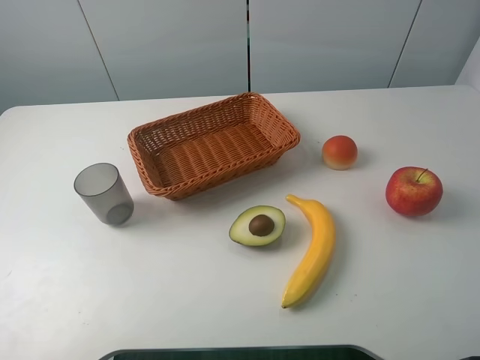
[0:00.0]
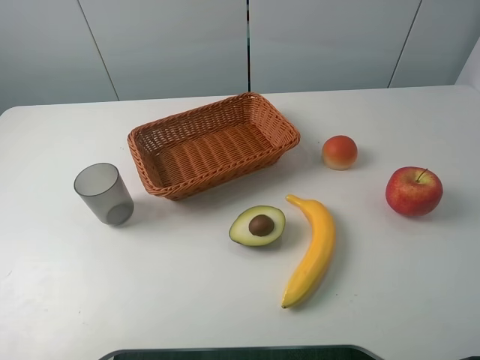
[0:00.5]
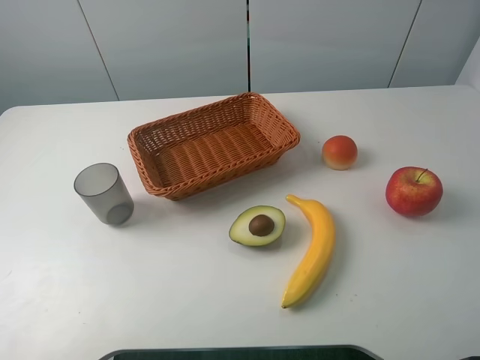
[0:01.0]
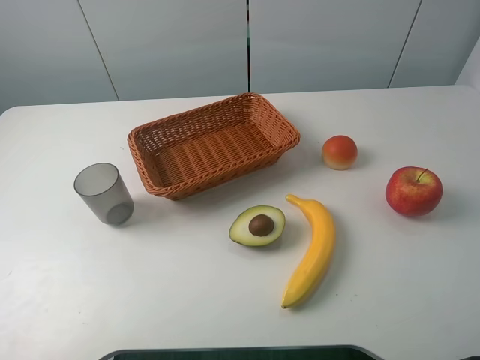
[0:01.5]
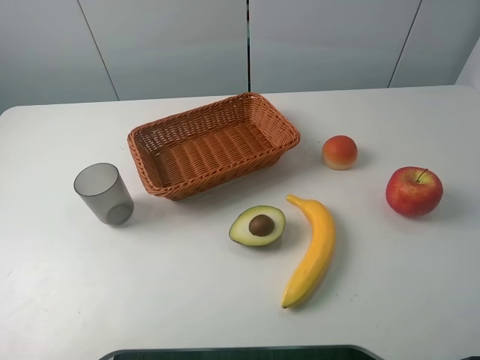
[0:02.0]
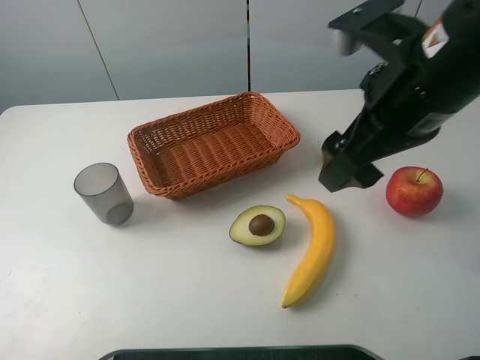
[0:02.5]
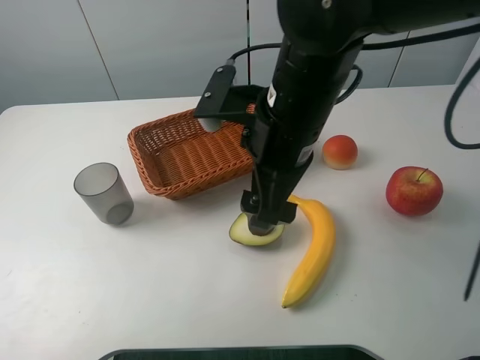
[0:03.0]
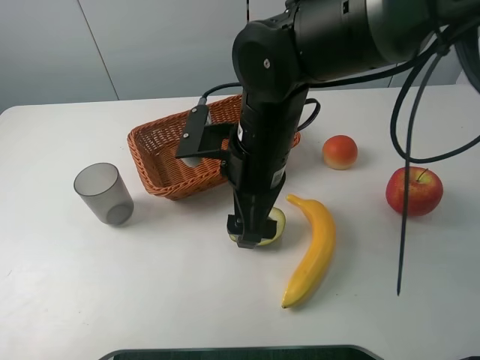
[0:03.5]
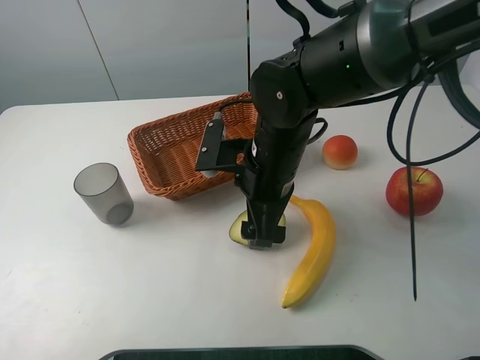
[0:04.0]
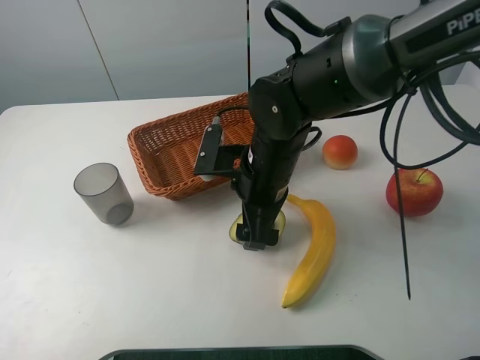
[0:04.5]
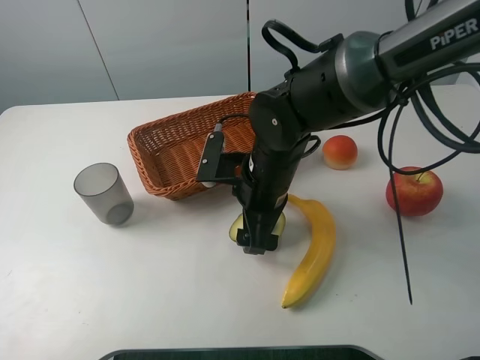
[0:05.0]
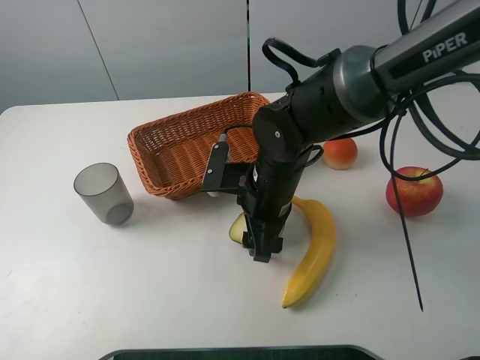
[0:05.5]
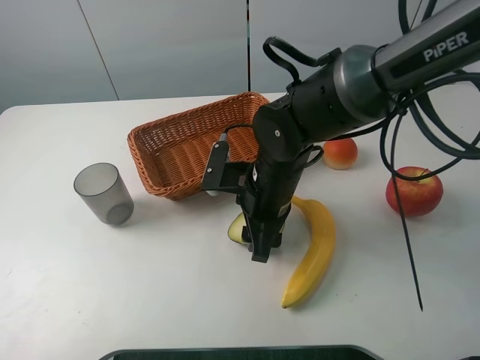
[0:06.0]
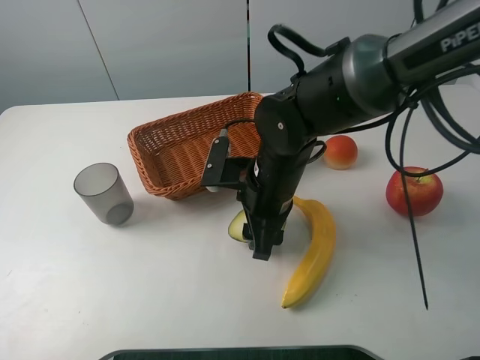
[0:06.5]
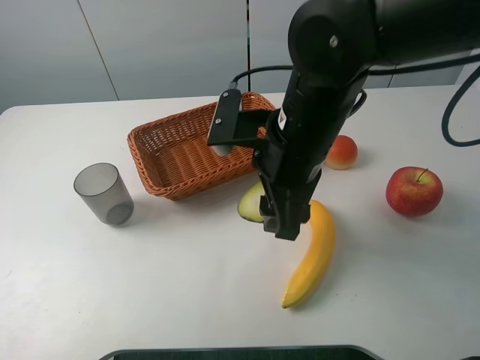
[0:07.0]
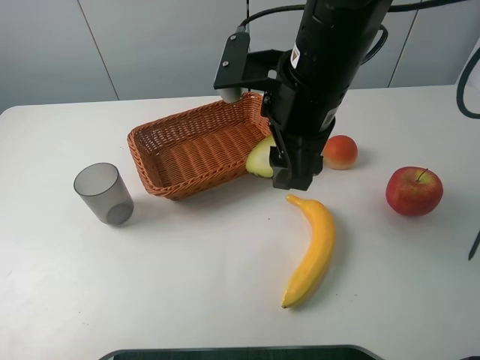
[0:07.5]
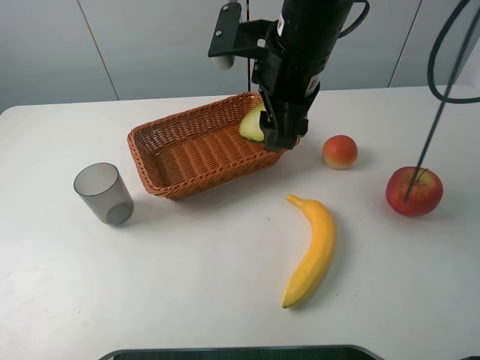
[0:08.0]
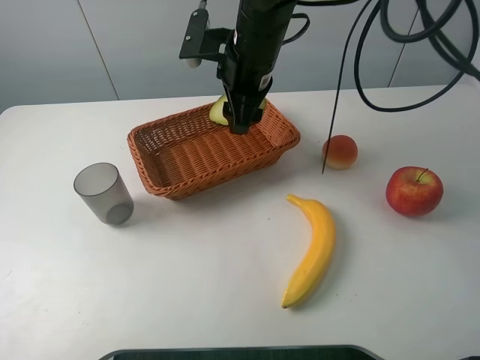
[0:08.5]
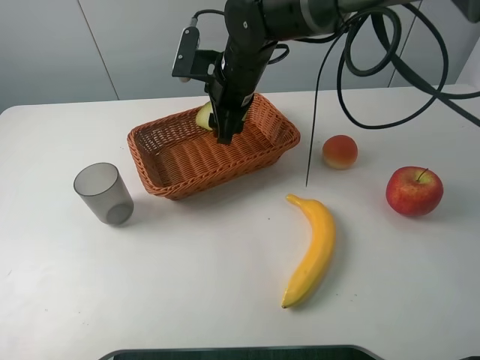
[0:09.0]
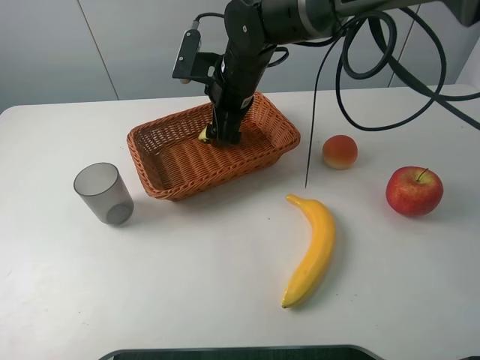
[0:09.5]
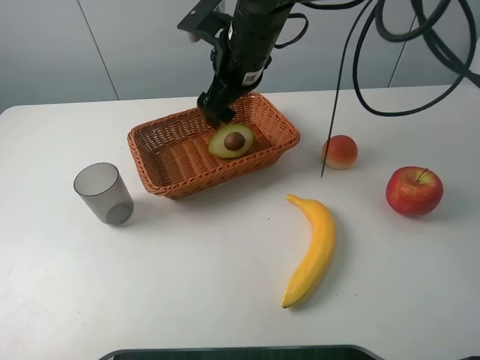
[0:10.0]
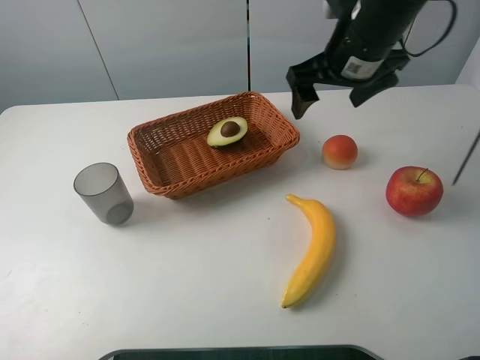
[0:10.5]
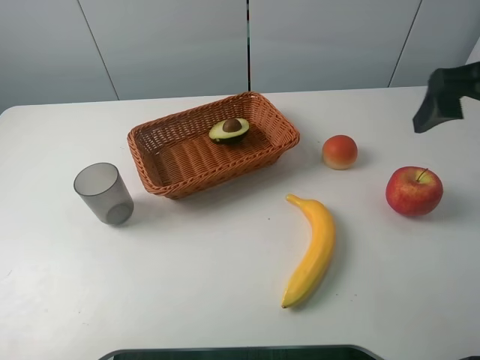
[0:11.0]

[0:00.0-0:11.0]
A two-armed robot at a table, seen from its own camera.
Task of the whole recording: randomly pick up an item from the table and put it in the basket.
Step, 0:00.0 to 0:05.5: Grasp the avocado with the right gripper.
Step, 0:06.0 to 0:10.0: Place the avocado into the basket with the right gripper.
0:02.0 to 0:03.5: The right gripper moves to the left, downward and forward, some 35 cm.
0:03.5 to 0:05.5: The right gripper travels downward by some 5 cm, and closes its fingers.
0:05.5 to 0:07.5: The right gripper is displaced upward by roughly 15 cm.
0:07.5 to 0:09.0: The right gripper goes about 15 cm forward, downward and to the left.
0:09.0 to 0:11.0: The right gripper travels to the right, backward and upward by roughly 35 cm, and opens up.

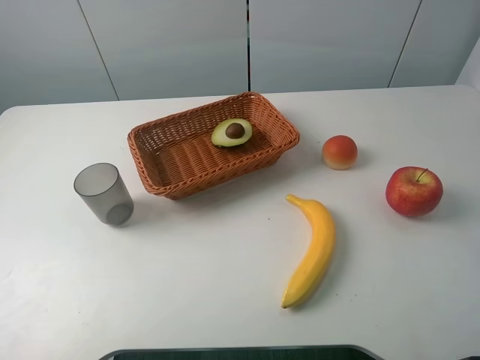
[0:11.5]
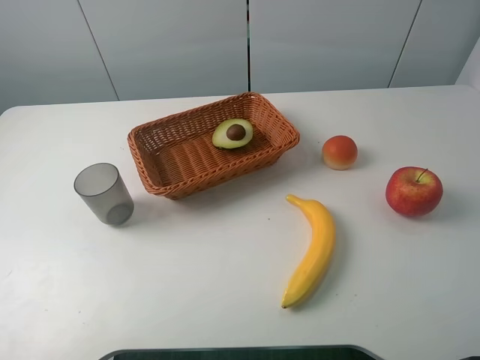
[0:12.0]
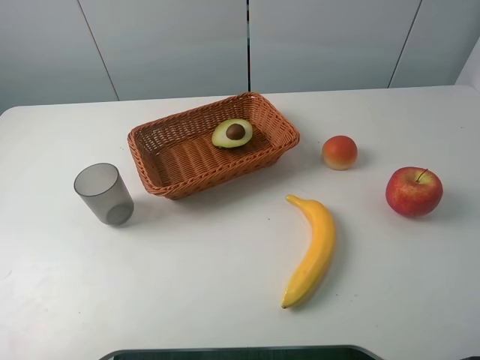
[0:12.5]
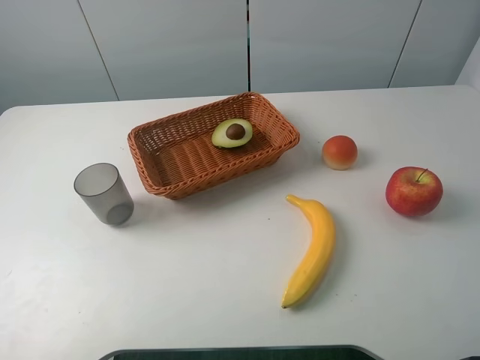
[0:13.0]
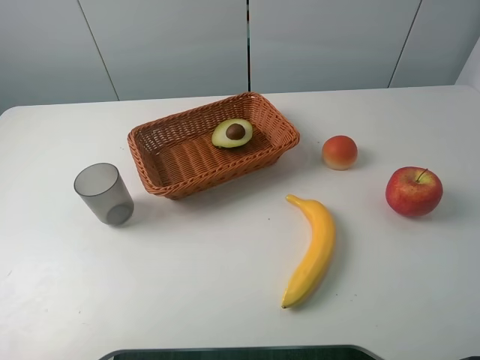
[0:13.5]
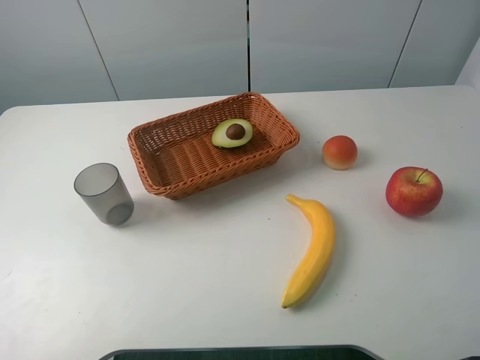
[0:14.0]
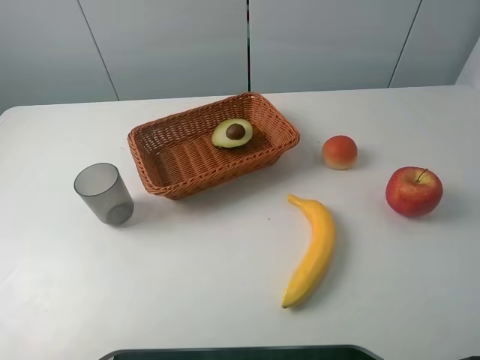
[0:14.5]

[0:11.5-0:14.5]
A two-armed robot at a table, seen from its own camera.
Task of the whole recording: randomly pick up an item from the table and put it in the basket.
0:13.0 to 0:14.5: The two grippers keep their place.

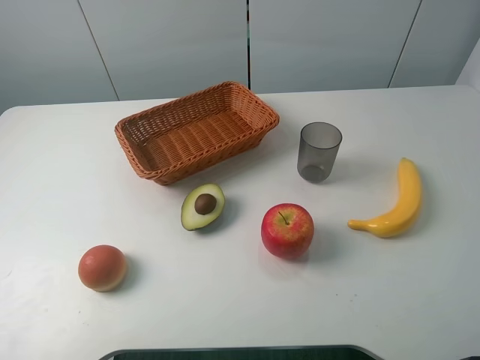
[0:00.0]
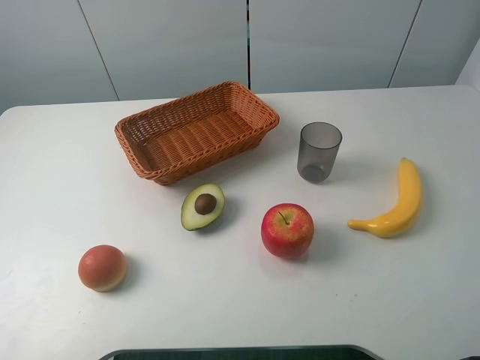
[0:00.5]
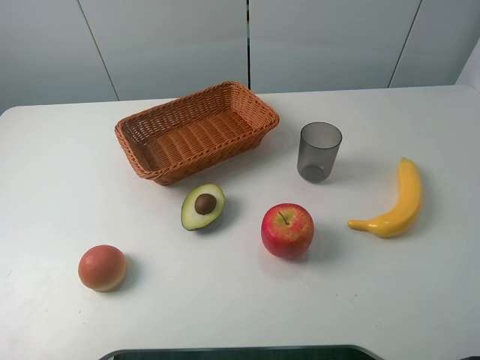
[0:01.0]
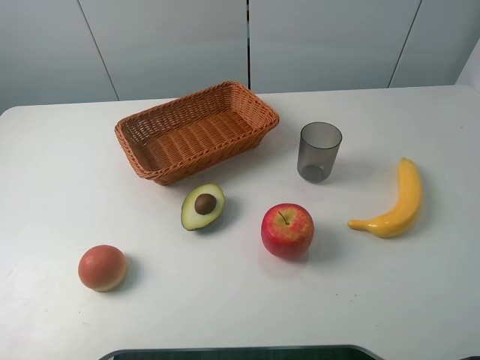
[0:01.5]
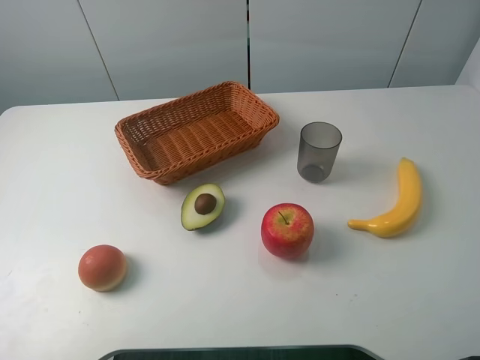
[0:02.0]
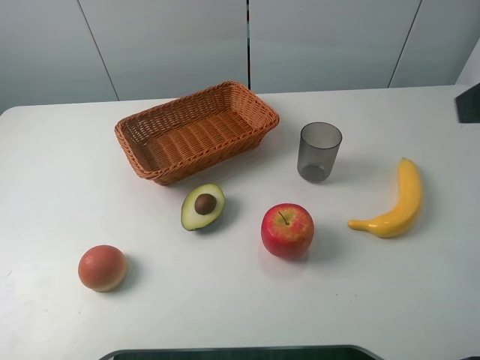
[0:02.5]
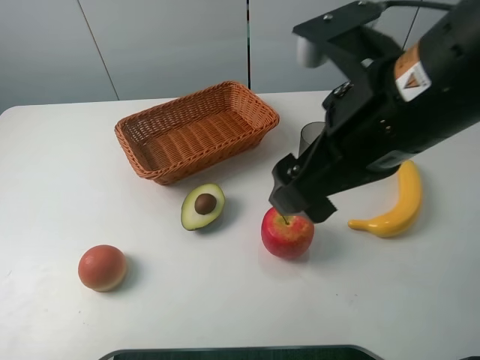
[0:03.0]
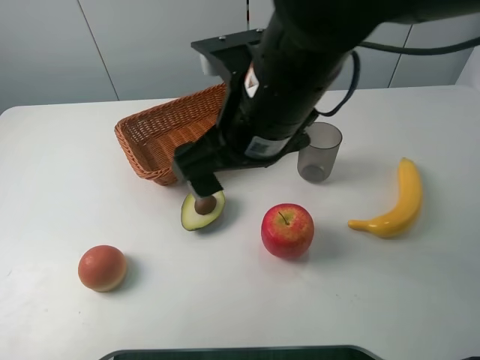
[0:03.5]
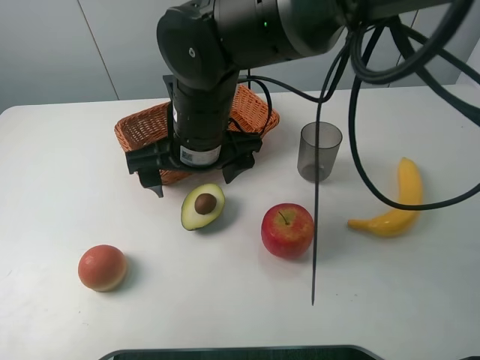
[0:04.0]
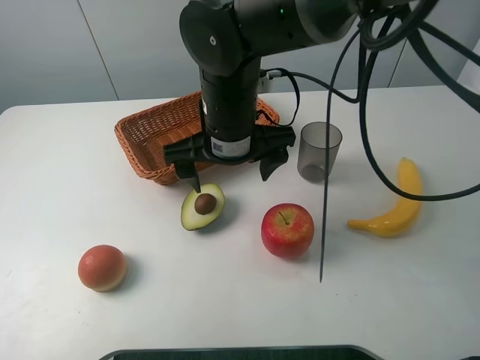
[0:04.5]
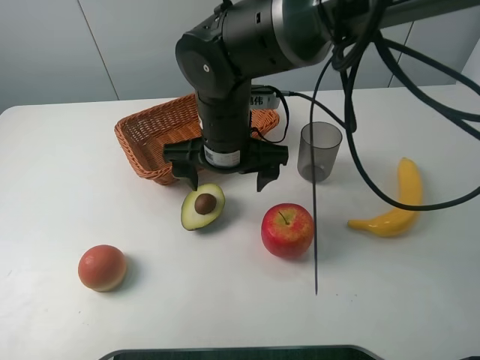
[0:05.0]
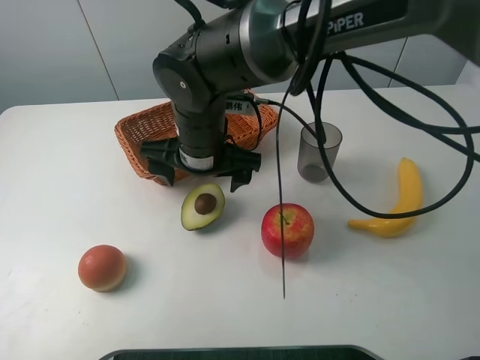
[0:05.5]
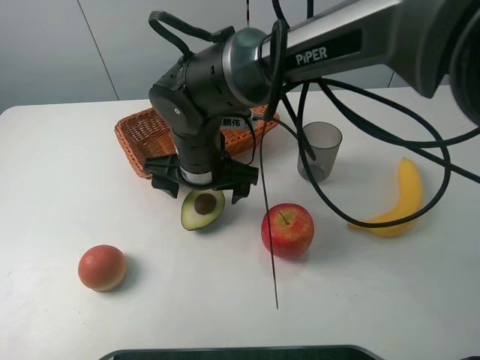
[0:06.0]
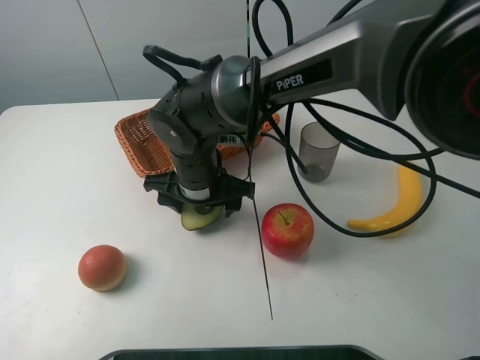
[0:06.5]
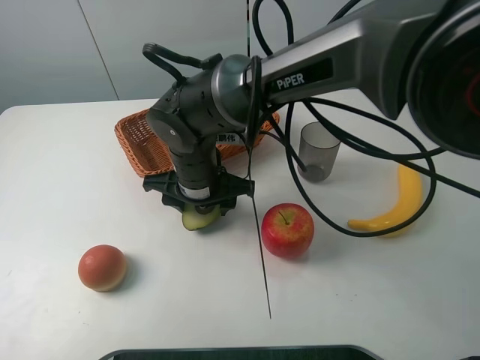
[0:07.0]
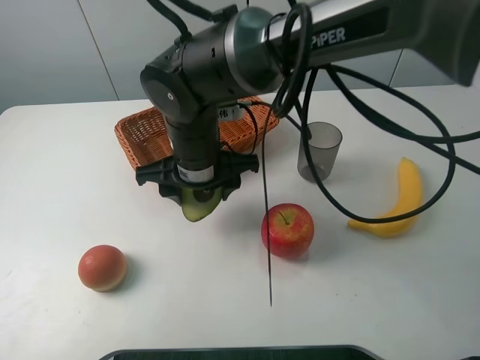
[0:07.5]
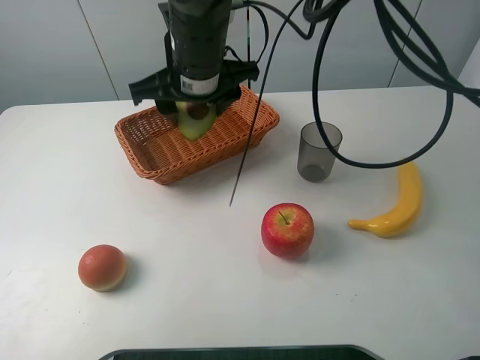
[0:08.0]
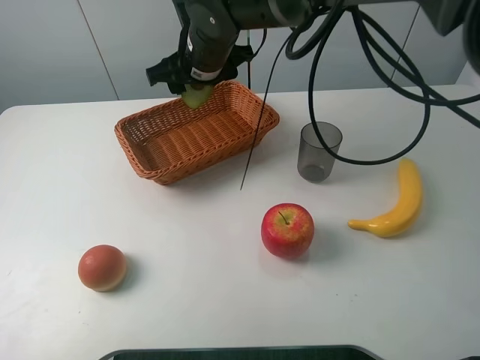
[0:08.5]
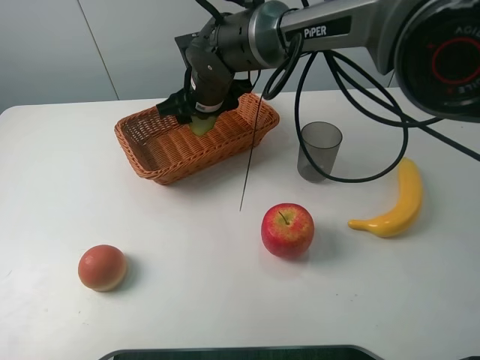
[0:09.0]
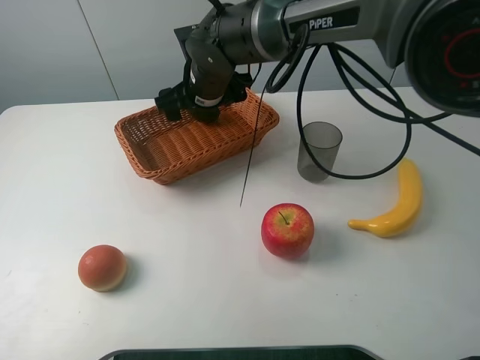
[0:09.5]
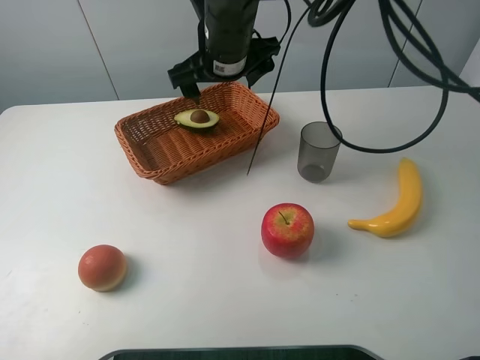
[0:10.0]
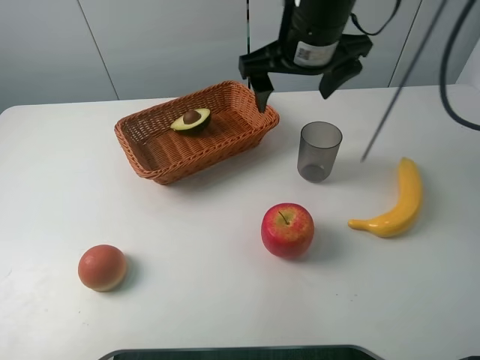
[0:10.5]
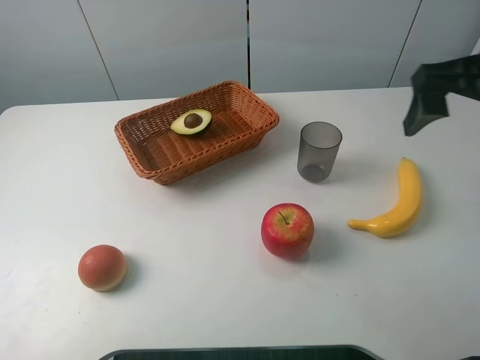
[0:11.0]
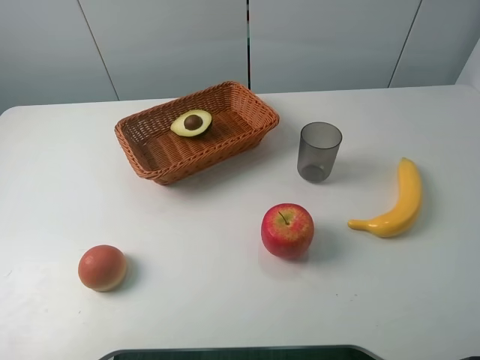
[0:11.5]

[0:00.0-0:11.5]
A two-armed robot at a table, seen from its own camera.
Task of the whole recording: randomly pick up an item from the table and put it in the basket.
Step, 0:00.0 to 0:07.0: Grasp the avocado with the right gripper.
Step, 0:07.5 to 0:09.5: Place the avocado into the basket with the right gripper.
0:02.0 to 0:04.0: The right gripper heads to the left, forward and downward, covering about 40 cm.
0:04.0 to 0:06.0: The right gripper goes about 5 cm downward.
0:06.0 to 0:07.5: The right gripper closes up.
0:07.5 to 0:09.5: The right gripper heads forward, covering about 15 cm, and opens its fingers.
0:09.5 to 0:11.5: The right gripper moves to the right, backward and upward, some 50 cm.
